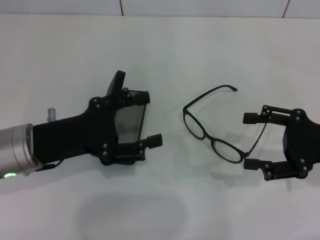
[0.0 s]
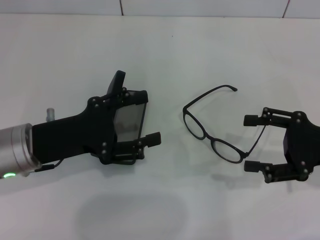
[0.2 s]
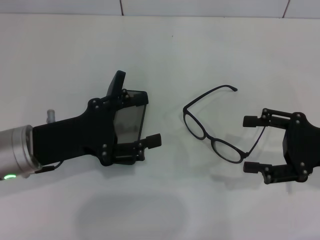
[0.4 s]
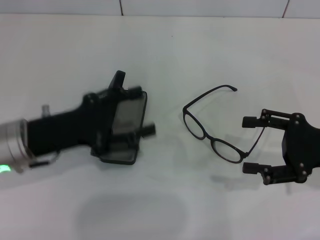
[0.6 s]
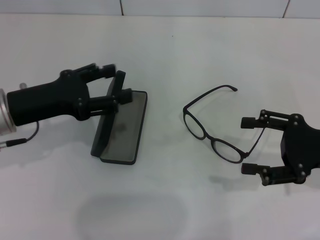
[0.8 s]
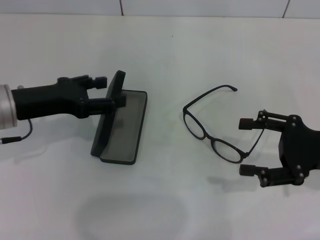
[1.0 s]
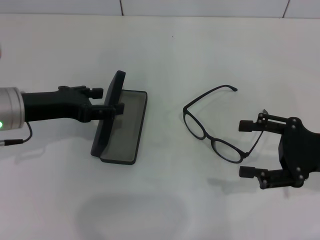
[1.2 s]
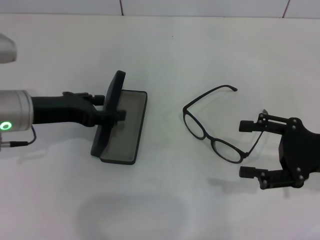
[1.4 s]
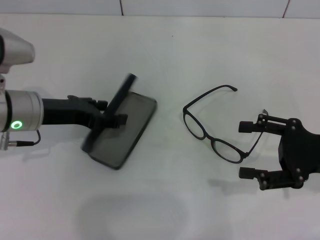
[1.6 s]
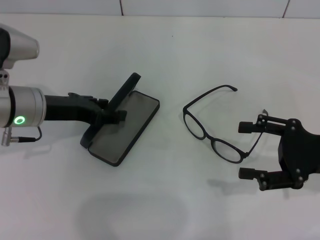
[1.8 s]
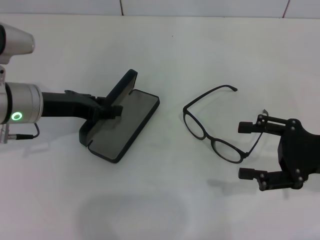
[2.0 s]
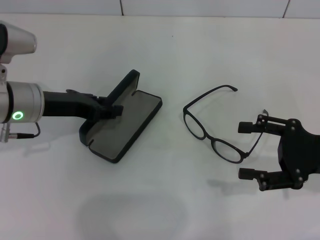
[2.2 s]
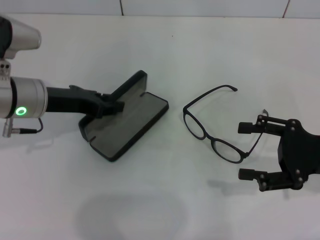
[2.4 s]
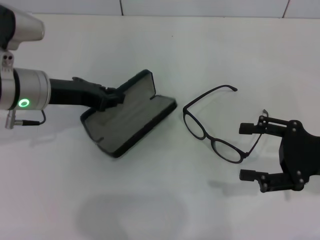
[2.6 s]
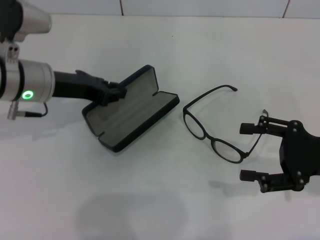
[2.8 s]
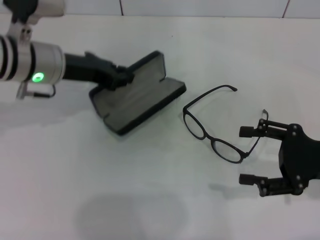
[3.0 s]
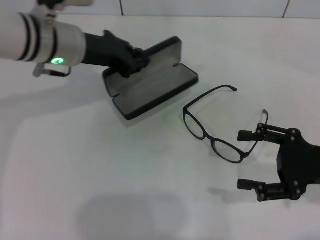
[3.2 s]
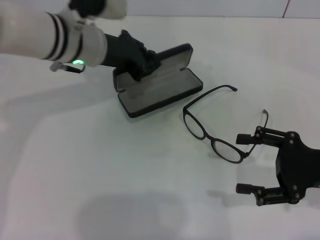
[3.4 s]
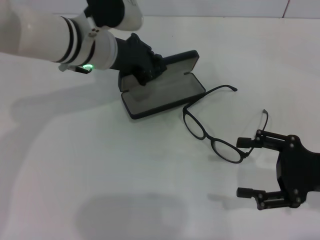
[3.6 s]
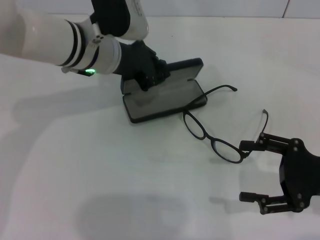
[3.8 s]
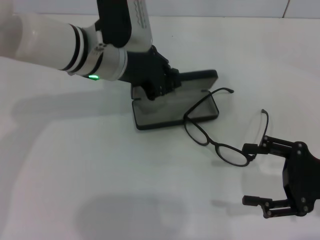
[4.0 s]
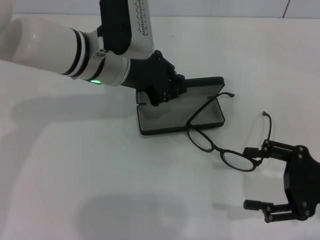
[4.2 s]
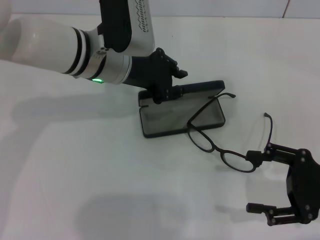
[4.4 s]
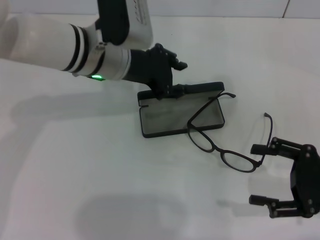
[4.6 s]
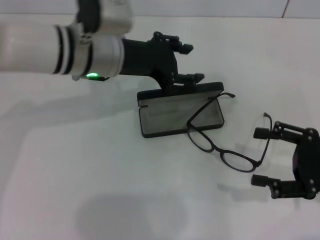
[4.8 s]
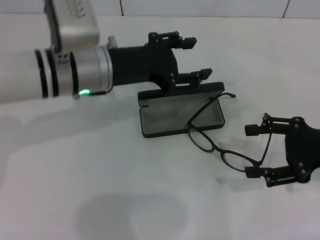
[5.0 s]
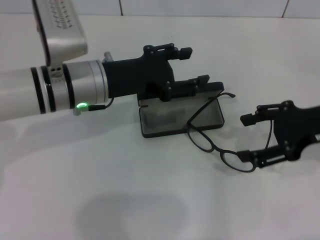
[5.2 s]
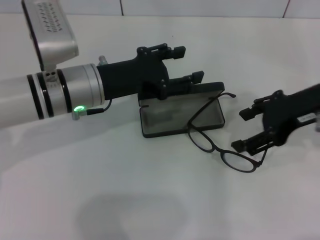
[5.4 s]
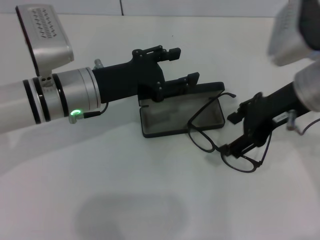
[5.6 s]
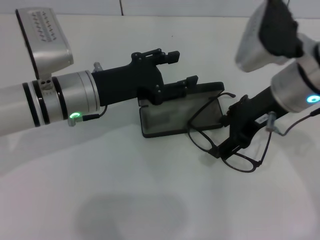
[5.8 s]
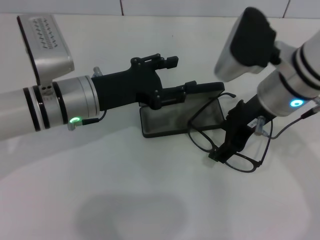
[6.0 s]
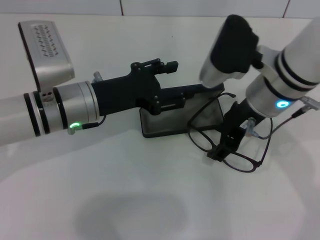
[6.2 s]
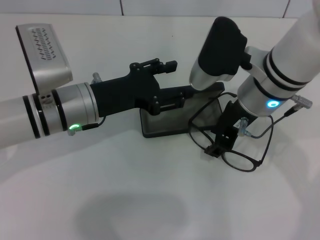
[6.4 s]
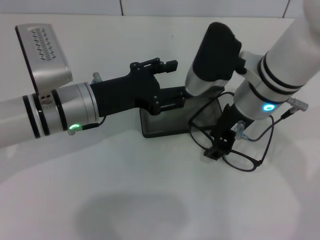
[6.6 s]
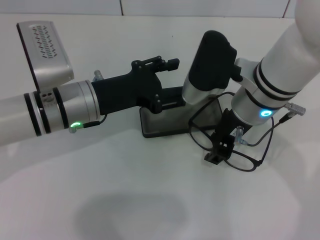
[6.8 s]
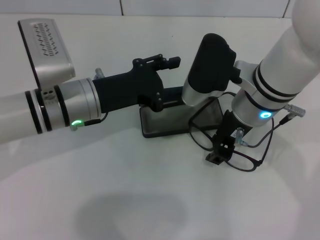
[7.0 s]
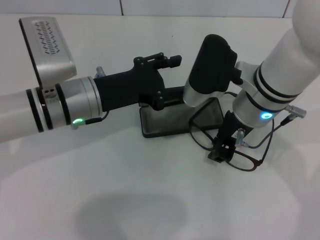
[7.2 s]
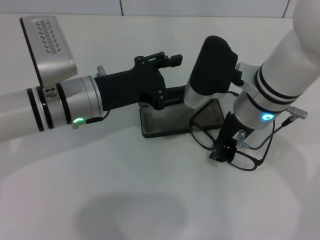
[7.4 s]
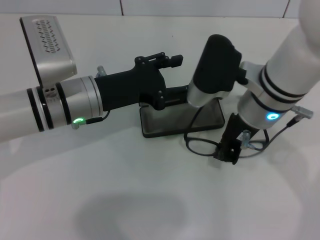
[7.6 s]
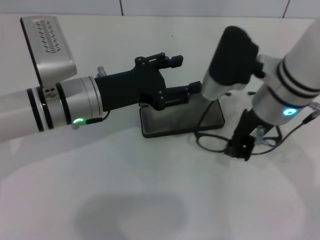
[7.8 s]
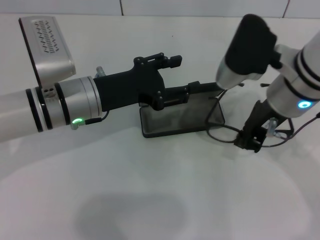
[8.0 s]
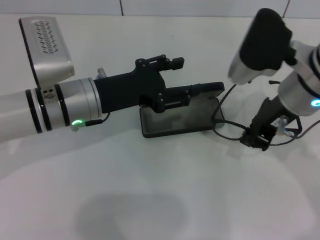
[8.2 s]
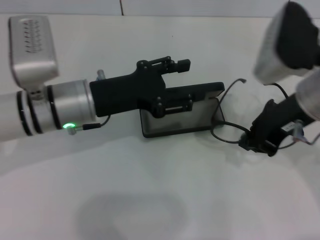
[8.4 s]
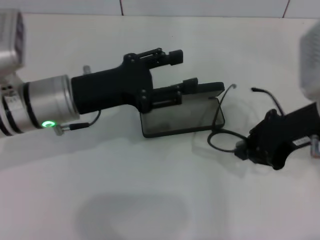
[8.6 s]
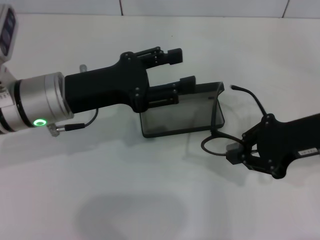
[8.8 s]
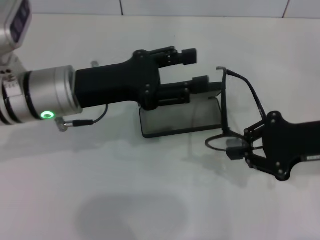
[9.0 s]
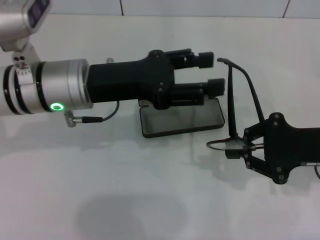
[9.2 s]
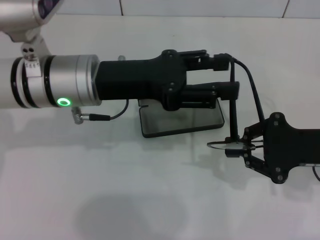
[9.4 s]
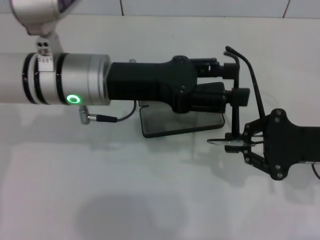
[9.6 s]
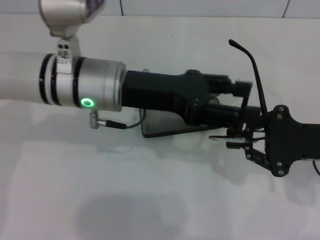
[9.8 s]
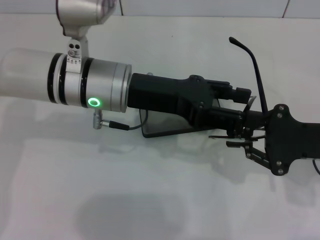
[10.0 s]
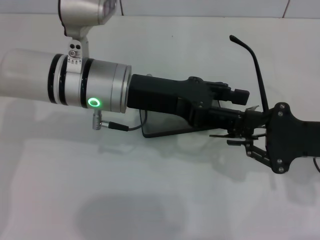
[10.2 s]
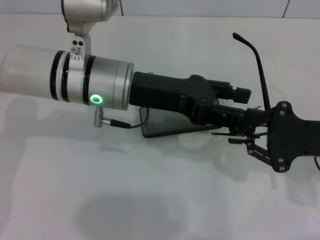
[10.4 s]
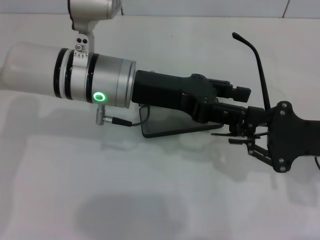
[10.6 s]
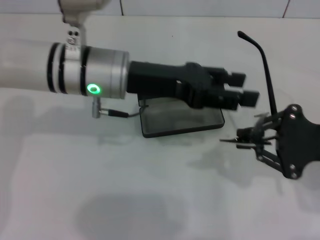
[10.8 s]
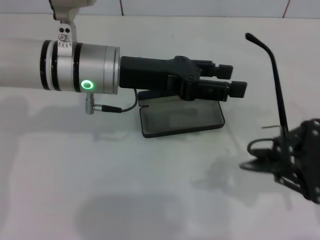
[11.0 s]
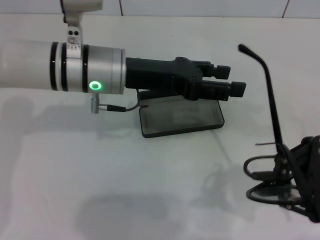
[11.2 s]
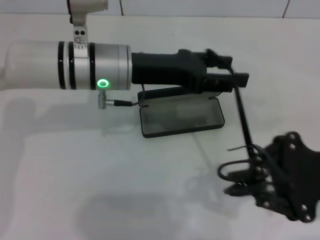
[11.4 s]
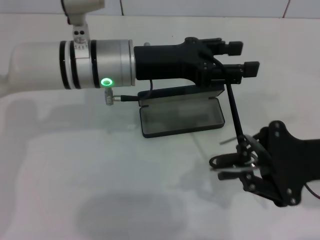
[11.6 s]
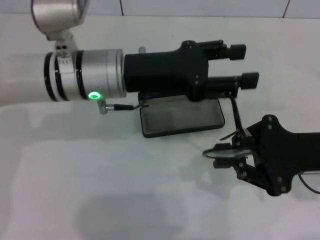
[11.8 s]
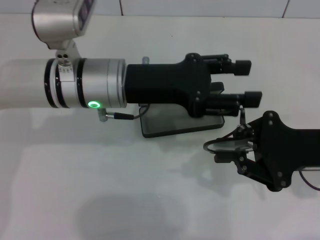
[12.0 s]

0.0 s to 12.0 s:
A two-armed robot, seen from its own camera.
Step, 0.0 to 2.4 s: Grab the glasses case with your left hand.
Step, 2.6 to 4.2 s: Place the glasses case in the center of the table with your left hand.
Step, 4.6 to 7.4 s: Grab the eyeglass frame with your right hand.
0.0 to 1.6 s: The left gripper is displaced forward by about 5 cm.
1.6 to 3.0 s: The left gripper ends up some 10 cm from where it was, and closes up.
3.0 to 4.4 s: The left gripper travels to the right by roughly 10 cm.
4.4 to 6.0 s: The right gripper heads to the left, forward and upward, covering some 20 cm. Meanwhile the left gripper travels to the left by roughly 5 cm, and opens up.
6.0 to 7.6 s: The right gripper closes its fingers.
7.6 to 9.0 s: The right gripper goes about 15 cm to the right and backward.
9.0 to 10.4 s: The left gripper heads to the right, covering roughly 5 cm.

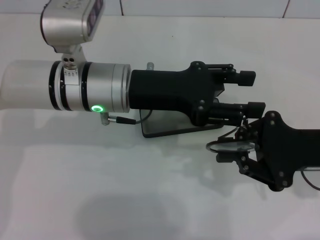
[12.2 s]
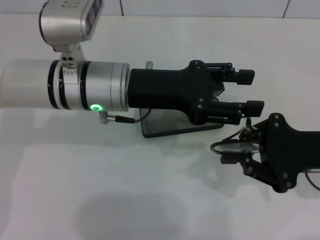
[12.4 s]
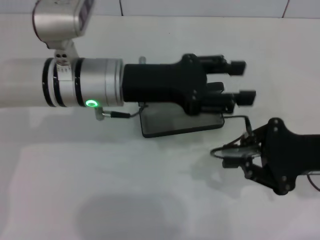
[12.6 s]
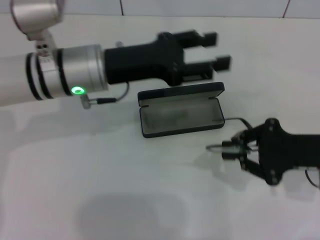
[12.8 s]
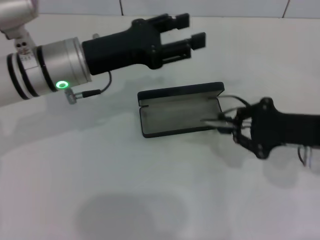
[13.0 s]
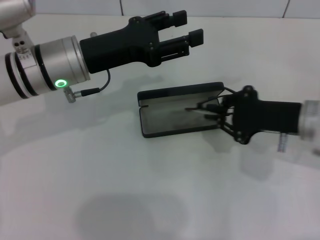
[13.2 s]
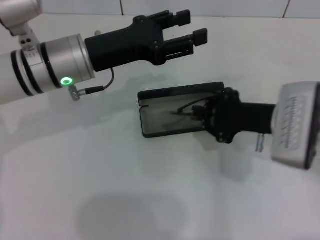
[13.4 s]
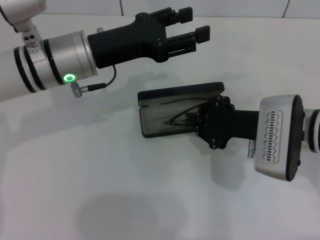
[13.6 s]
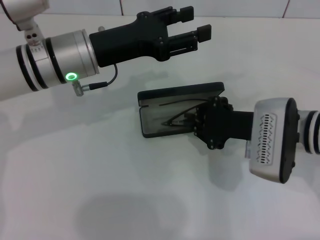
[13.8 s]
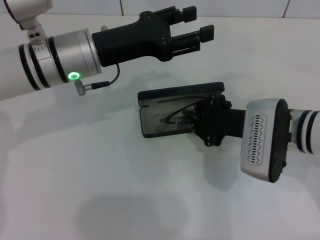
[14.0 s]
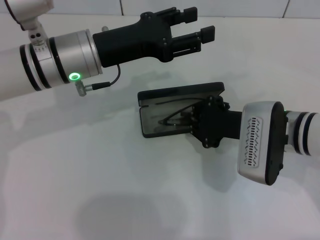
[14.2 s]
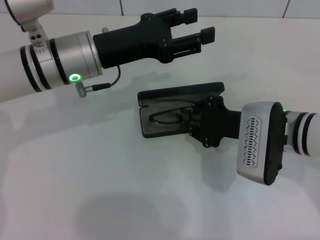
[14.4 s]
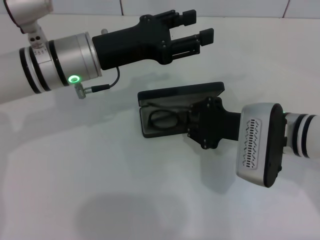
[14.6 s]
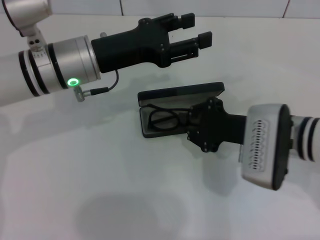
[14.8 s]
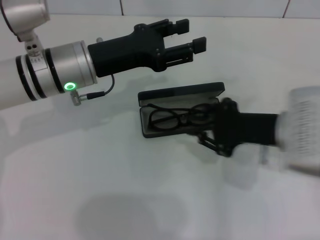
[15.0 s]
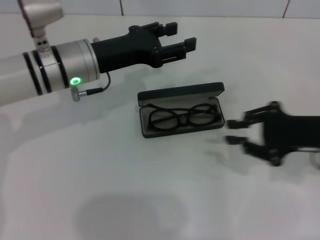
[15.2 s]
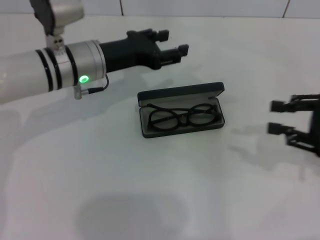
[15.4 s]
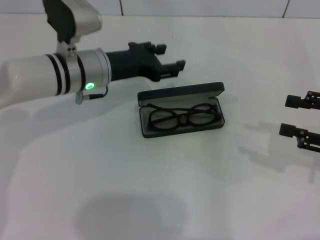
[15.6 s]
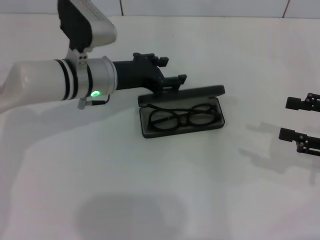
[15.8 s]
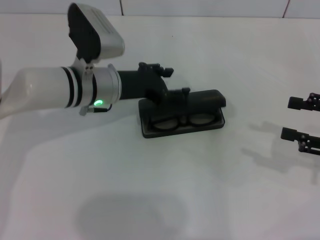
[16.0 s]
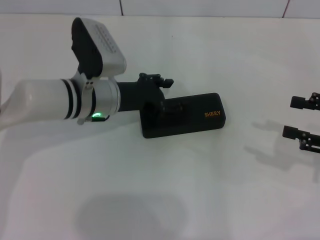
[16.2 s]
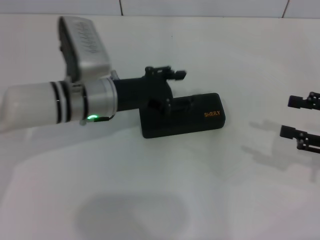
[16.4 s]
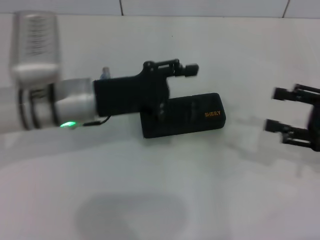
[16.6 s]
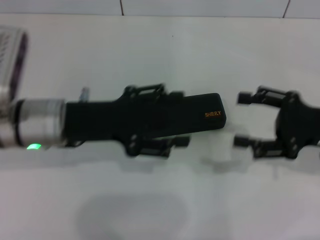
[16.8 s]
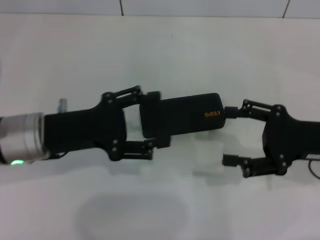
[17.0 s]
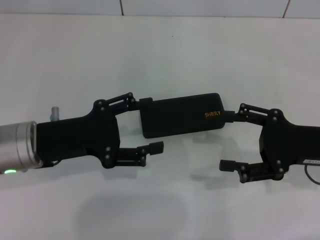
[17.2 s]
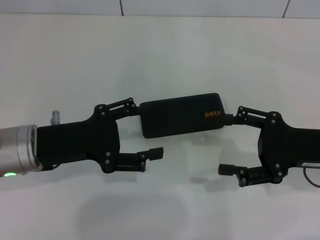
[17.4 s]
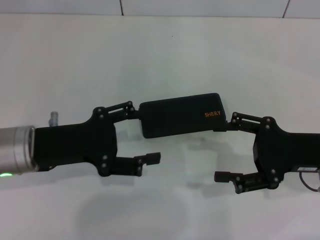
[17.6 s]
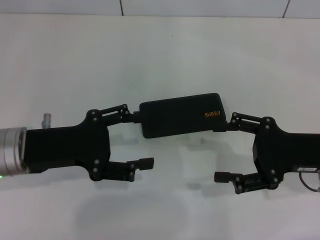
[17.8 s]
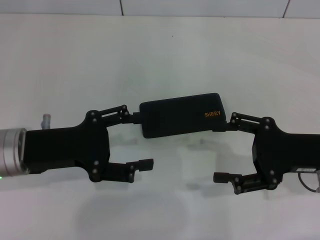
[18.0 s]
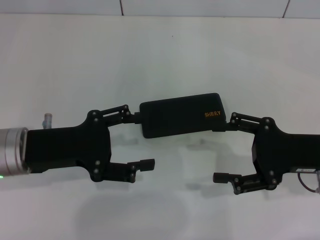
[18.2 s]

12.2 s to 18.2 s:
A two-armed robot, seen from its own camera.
Step, 12.2 to 14.6 s: Put the glasses into the case with your right hand.
Step, 14.8 to 16.0 s: Close the glasses case with your left hand.
12.2 to 13.8 s: The left gripper moves approximately 5 cm. Meanwhile the right gripper shifts approximately 10 cm to the left.
13.8 to 15.2 s: The right gripper travels to the right by approximately 10 cm.
15.2 to 16.6 s: The right gripper heads to the right, covering approximately 5 cm, and opens.
16.6 to 18.2 s: The left gripper travels to the left and backward by approximately 10 cm. Meanwhile the right gripper goes approximately 5 cm to the left.

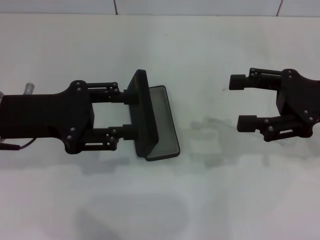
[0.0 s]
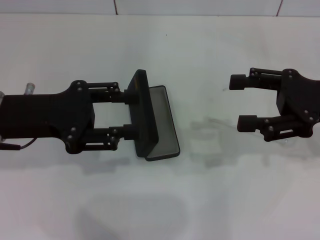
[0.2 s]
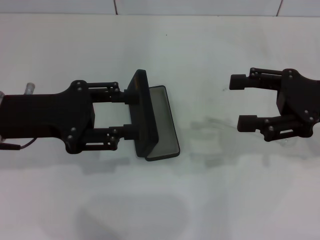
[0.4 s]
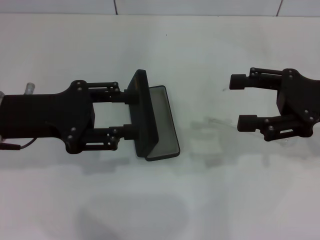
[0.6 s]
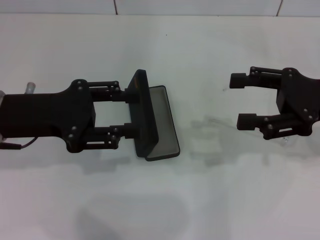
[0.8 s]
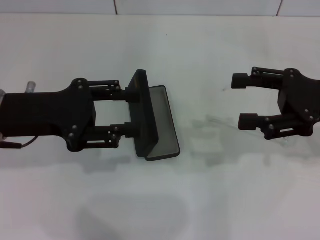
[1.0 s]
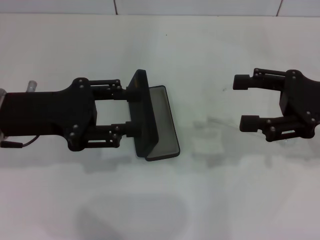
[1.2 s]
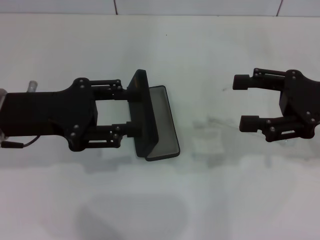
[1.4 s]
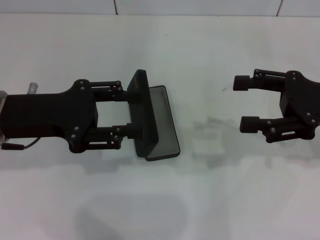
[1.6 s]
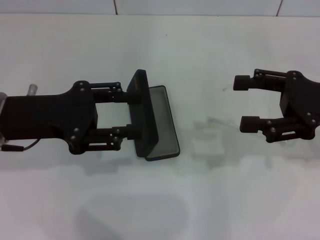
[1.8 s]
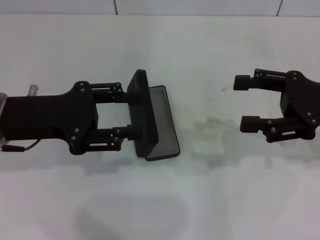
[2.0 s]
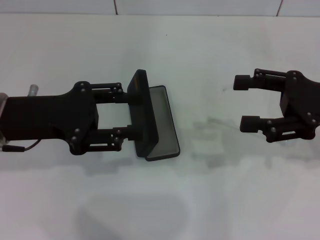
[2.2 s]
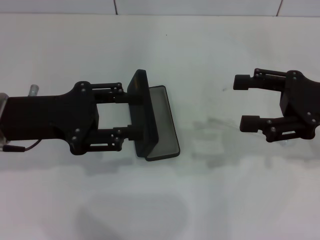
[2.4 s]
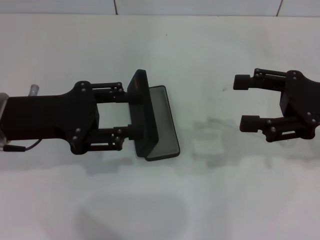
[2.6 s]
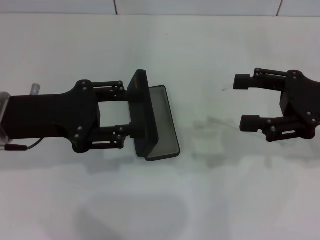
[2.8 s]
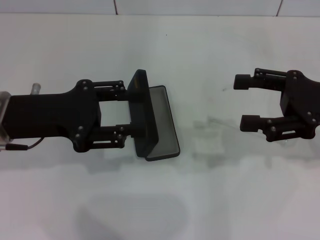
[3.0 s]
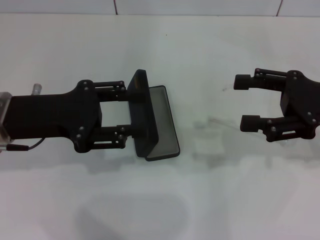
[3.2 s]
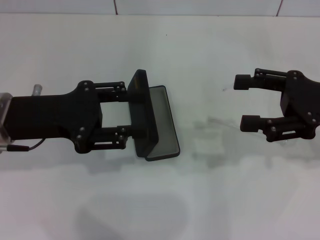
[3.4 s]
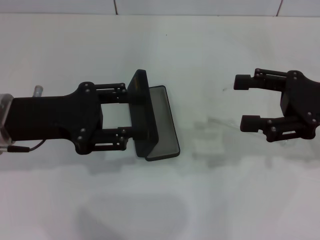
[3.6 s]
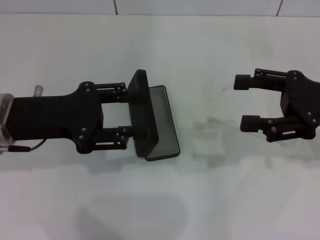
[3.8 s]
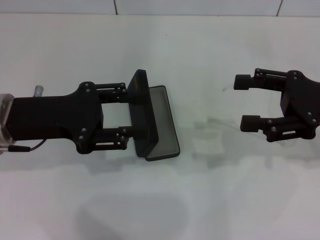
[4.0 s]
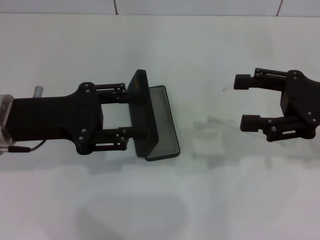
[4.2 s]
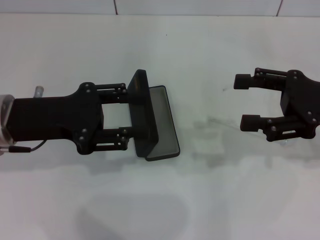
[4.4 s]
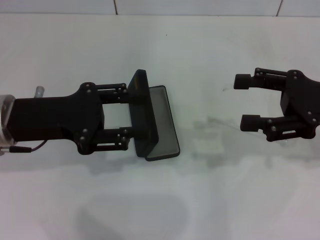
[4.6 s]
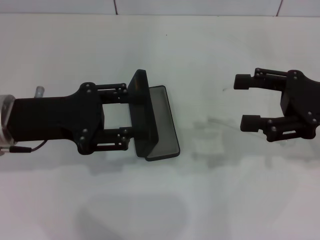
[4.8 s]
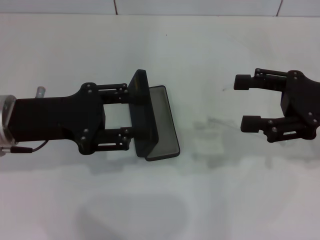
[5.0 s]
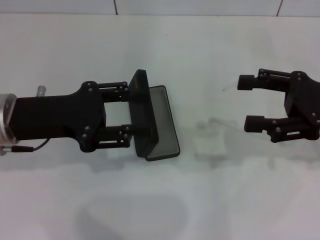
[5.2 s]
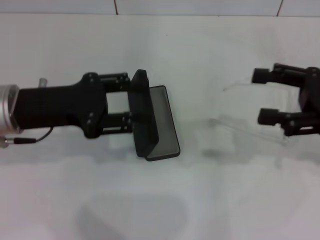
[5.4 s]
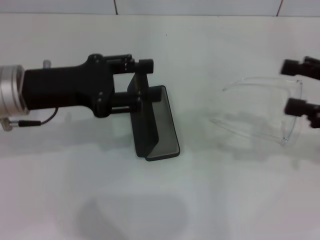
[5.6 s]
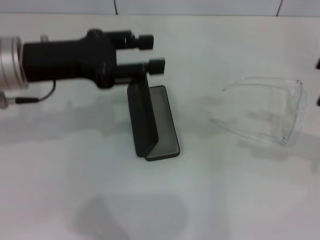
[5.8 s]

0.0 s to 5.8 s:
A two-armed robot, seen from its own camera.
0.0 to 4.4 s: The two grippers keep their place.
4.4 to 5.8 s: The right gripper is displaced to the right by some 10 cm; the left gripper ends up about 5 cm from where it was.
